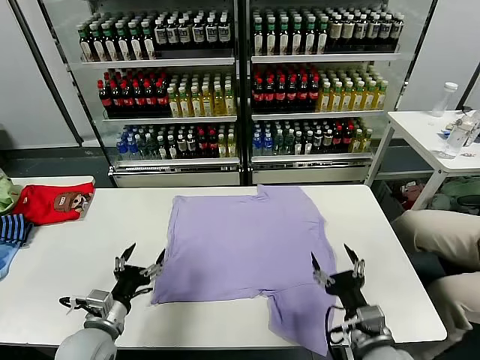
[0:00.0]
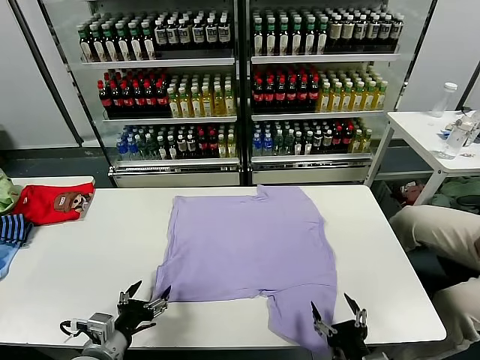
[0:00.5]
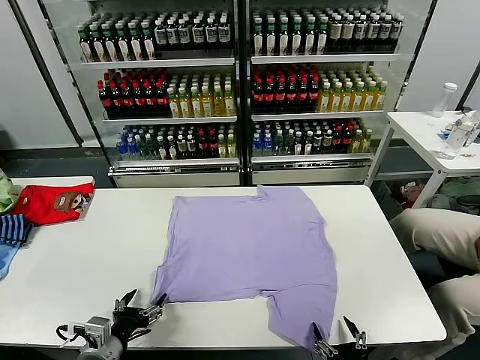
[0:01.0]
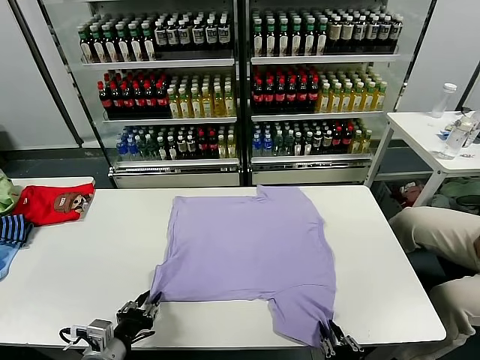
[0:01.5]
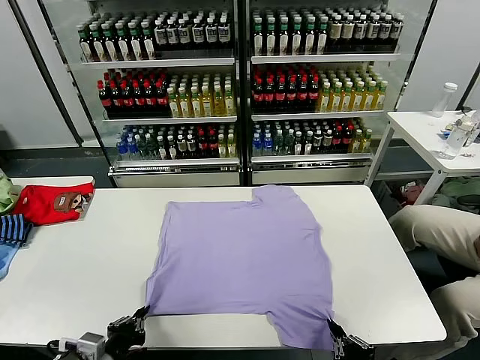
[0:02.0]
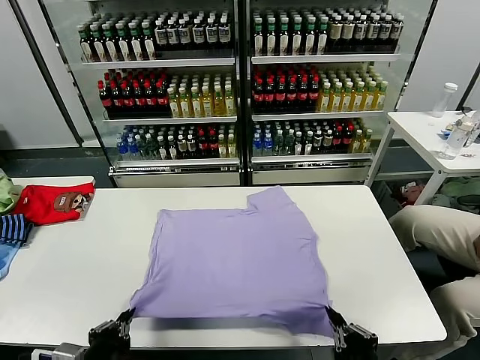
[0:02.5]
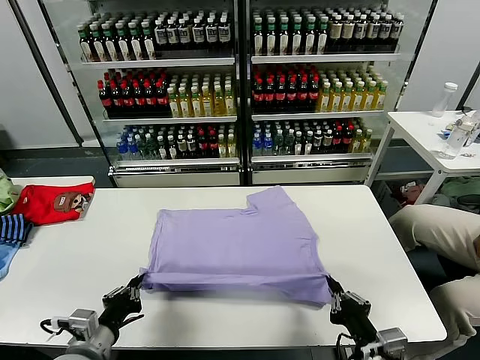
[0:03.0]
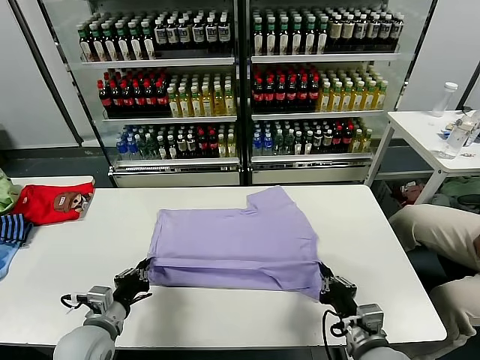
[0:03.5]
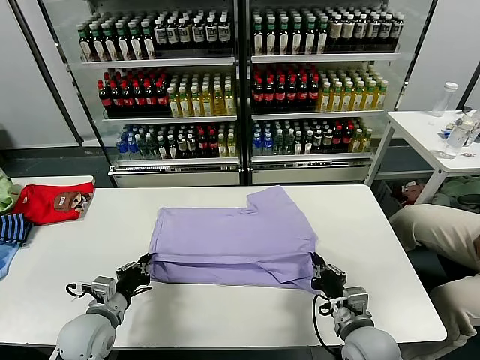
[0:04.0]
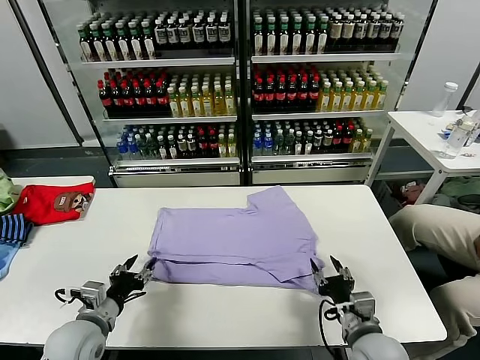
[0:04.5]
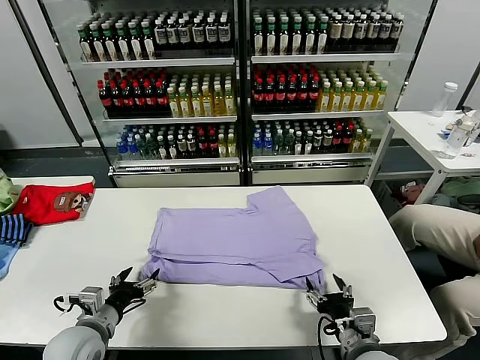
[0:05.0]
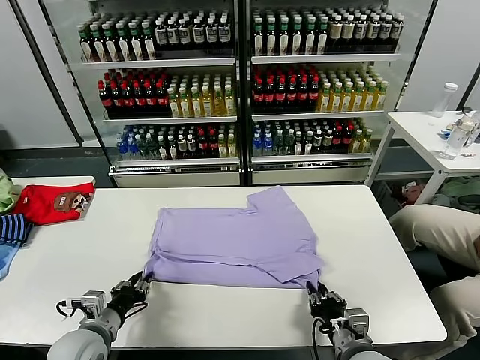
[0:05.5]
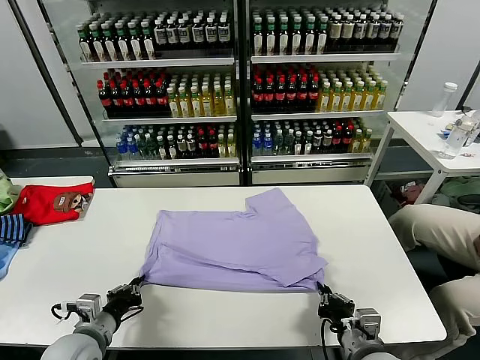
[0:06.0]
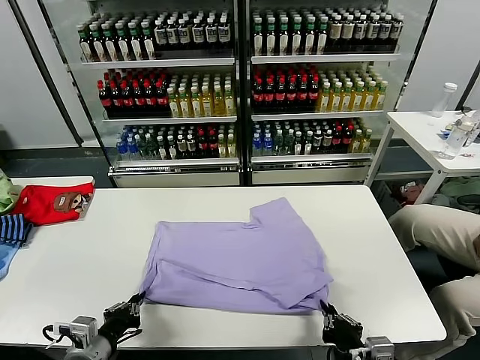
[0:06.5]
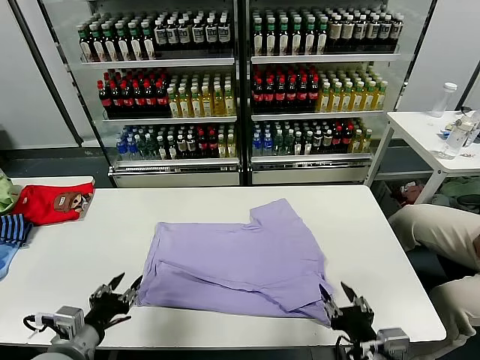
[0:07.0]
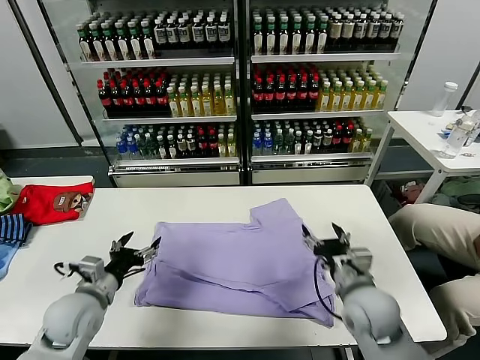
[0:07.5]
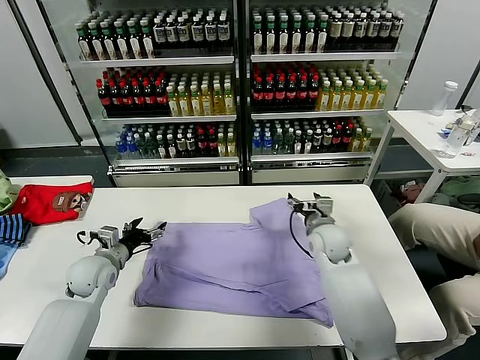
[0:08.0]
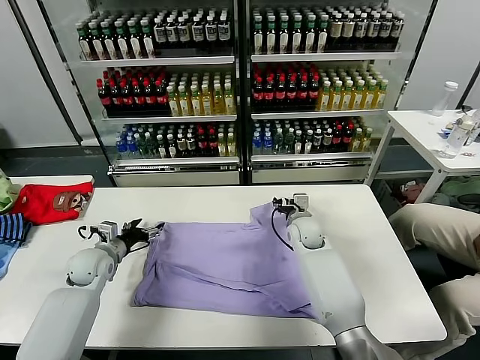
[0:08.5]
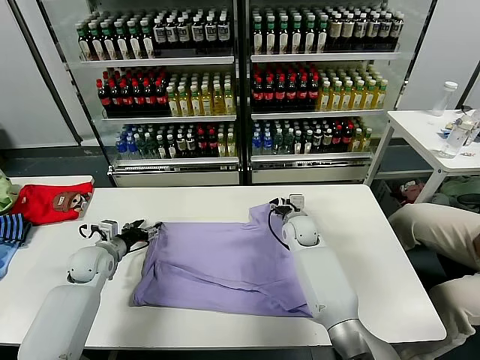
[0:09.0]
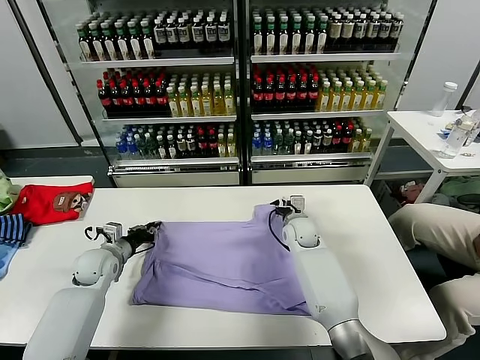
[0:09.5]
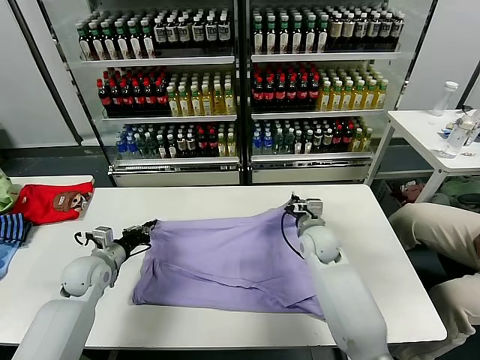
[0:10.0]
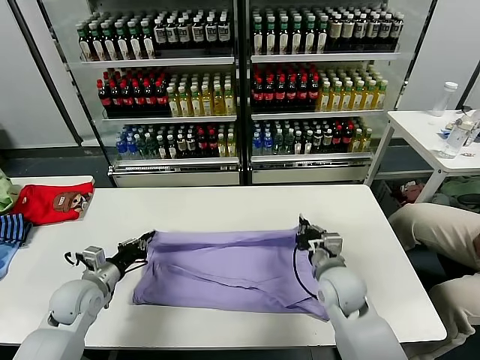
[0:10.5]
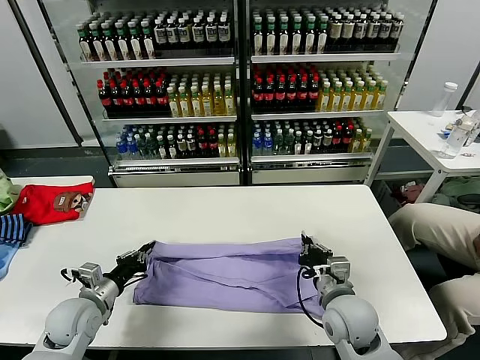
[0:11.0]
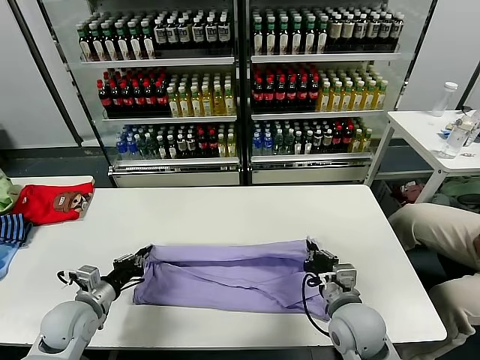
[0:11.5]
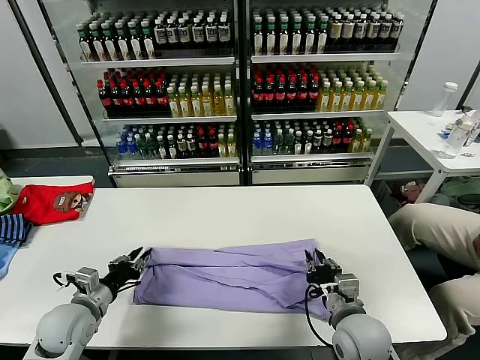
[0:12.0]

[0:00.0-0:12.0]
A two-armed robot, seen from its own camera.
Task of the whole recording: fold and organize the clothes.
Step, 0:00.0 to 0:01.5: use both grippers simultaneously to clamp the lower edge of the clothing fabric.
Step, 0:02.5 to 0:04.0: use both grippers to drag the lower edge of the fabric forward and fold it over the upper edge.
Step, 0:04.5 to 0:06.5: Drag the clothes downward with both gripper.
Step, 0:07.0 to 0:09.5: use both grippers simultaneously to clamp the upper edge of the clothing fabric.
0:02.0 to 0:04.0: The two grippers go roughly 15 cm forward.
0:04.0 to 0:06.0: The left gripper opens and closes again; the right gripper shifts some 5 cm backward, and opens, then closes once more.
0:06.0 to 0:08.0: The right gripper heads forward, covering roughly 30 cm, and opens up; the left gripper moves forward, about 15 cm, and opens.
0:08.0 to 0:10.0: The right gripper closes up. Meanwhile the left gripper closes its fingers.
0:10.0 to 0:12.0: The left gripper shifts about 10 cm backward; the right gripper is displaced backward by approximately 20 cm, and opens its fingers.

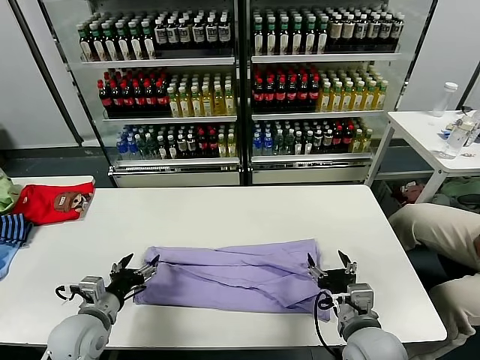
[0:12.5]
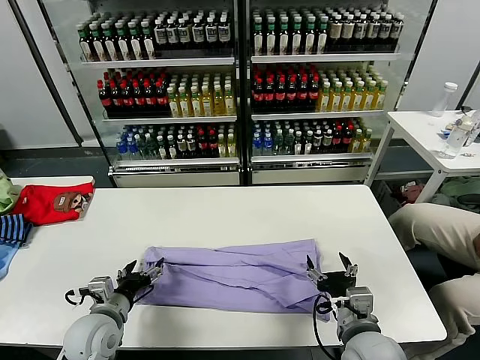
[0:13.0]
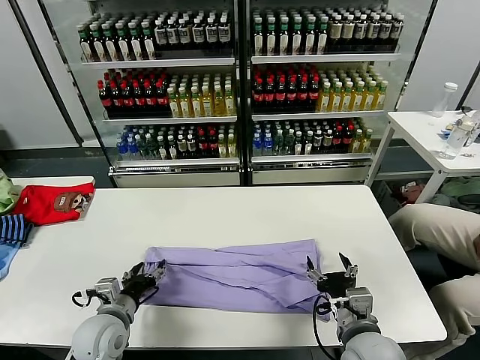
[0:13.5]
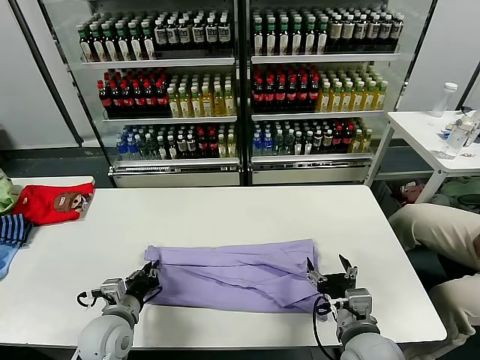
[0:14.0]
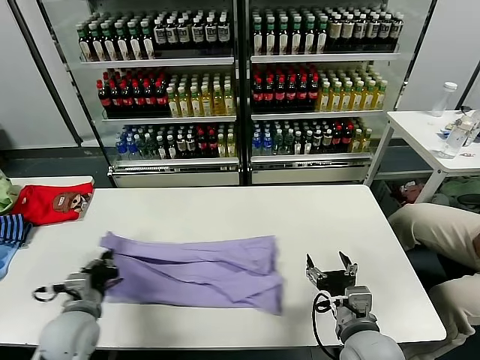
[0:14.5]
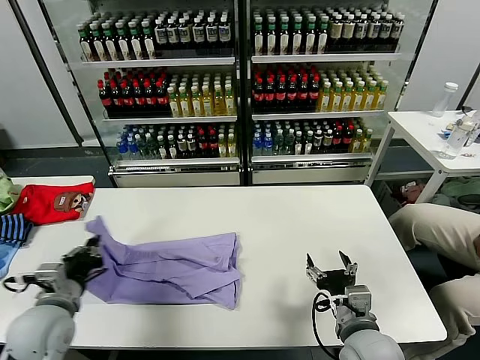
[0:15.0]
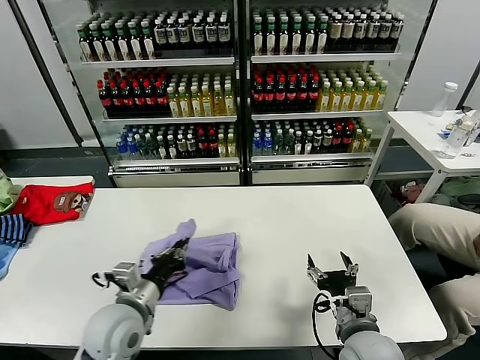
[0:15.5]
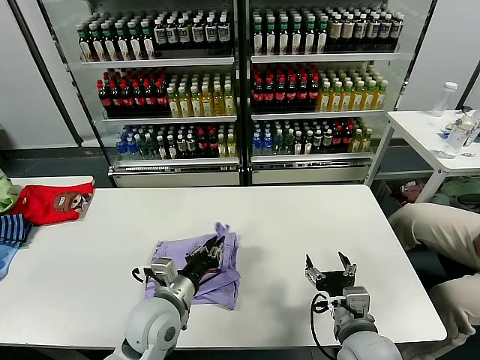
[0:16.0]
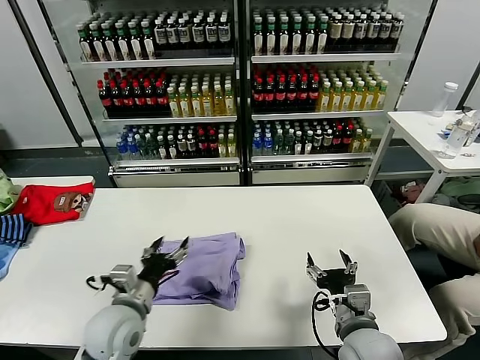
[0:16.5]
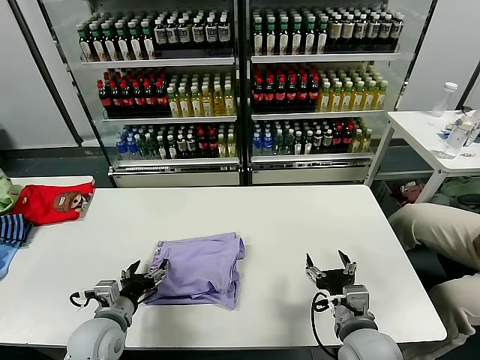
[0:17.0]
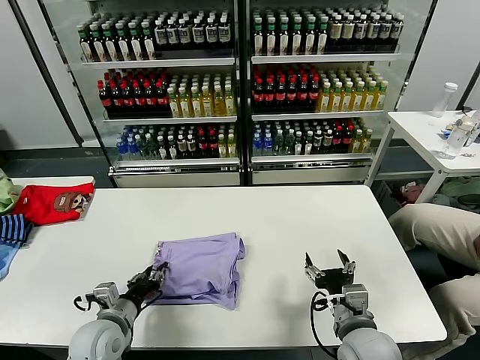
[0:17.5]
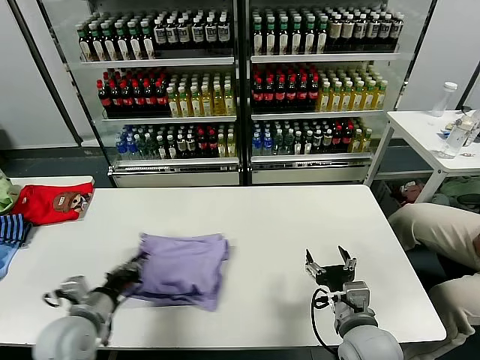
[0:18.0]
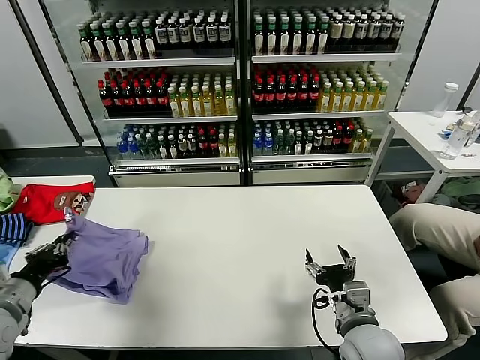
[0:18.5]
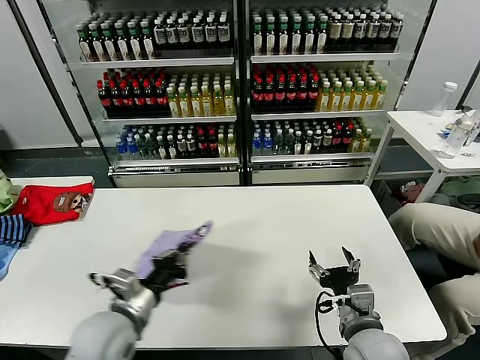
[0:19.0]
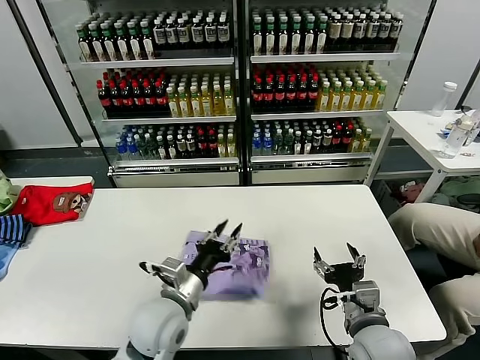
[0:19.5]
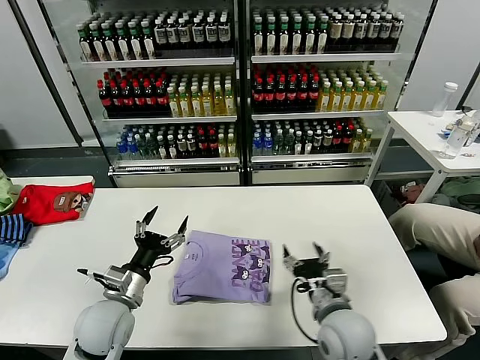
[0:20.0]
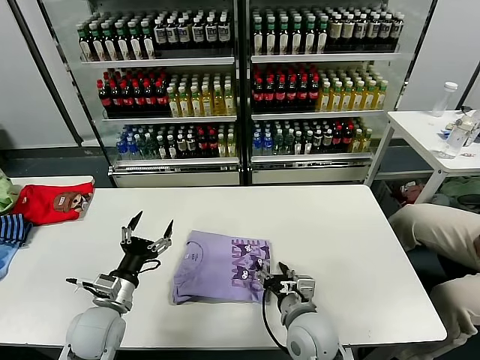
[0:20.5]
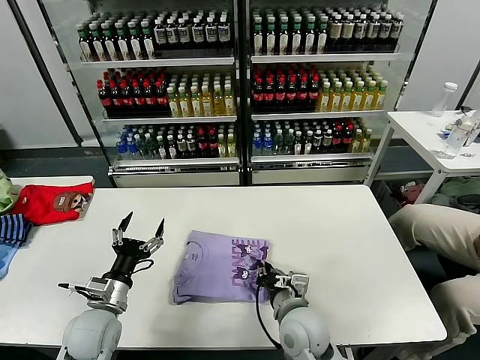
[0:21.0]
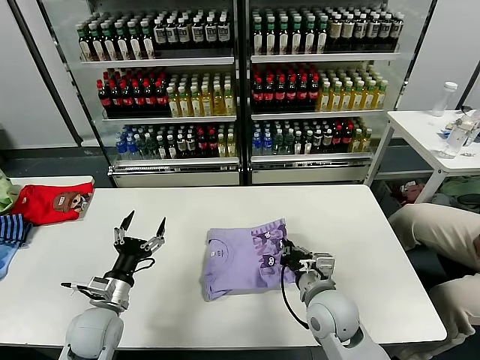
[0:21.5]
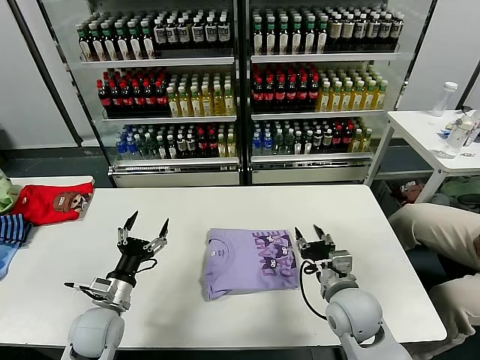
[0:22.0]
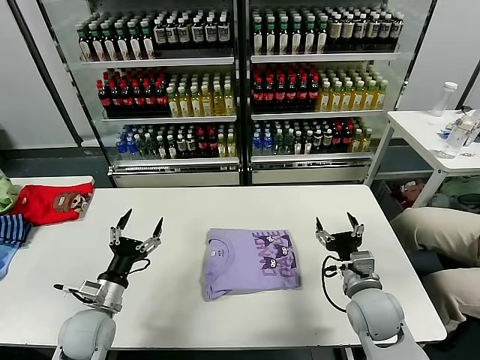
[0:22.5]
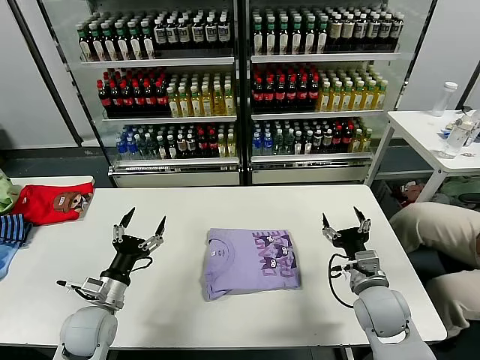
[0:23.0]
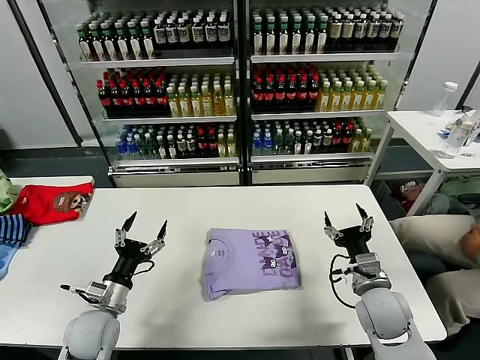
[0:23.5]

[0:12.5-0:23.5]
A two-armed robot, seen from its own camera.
Task of the whole recording: fold and organize the clothes.
Step, 0:12.5 to 0:14.0: use the left gripper to clamp the left edge of the fabric.
Step, 0:14.5 to 0:16.0: use the left gripper to drag the left edge of the fabric to the left and folds it over the right edge.
Step, 0:16.5 to 0:19.5: Flip the folded clothes over with left gripper.
Step, 0:20.0 to 0:21.5: Drag the clothes to the center of the table.
0:12.5 to 0:14.5: The left gripper closes its fingers.
0:14.5 to 0:16.0: The left gripper shifts roughly 15 cm to the right.
0:16.0 to 0:18.0: The left gripper shifts approximately 15 cm to the left, and opens, then closes again.
0:18.0 to 0:20.0: The left gripper moves left and right over about 30 cm, changing direction 2 times, and opens its fingers.
0:20.0 to 0:21.5: The right gripper travels to the left and back again, approximately 10 cm each way, and closes up, while the left gripper shifts by some 5 cm.
0:21.5 to 0:23.5: The right gripper is displaced to the right by about 10 cm, and opens.
